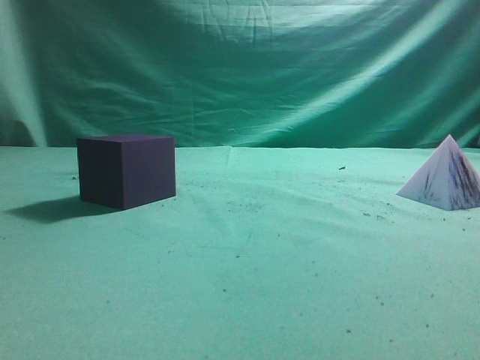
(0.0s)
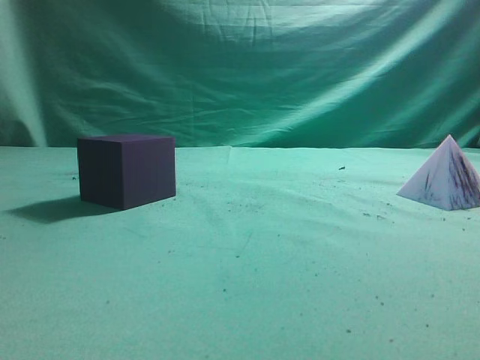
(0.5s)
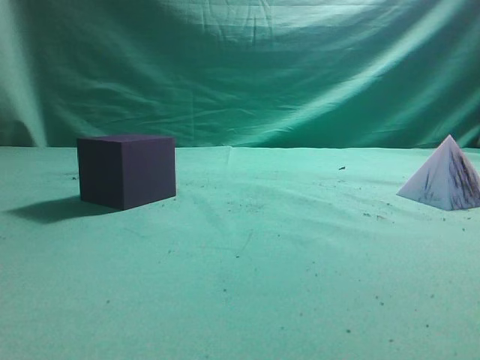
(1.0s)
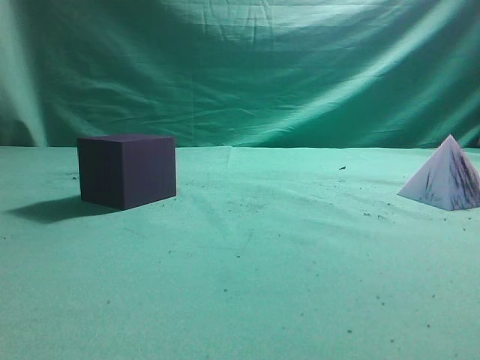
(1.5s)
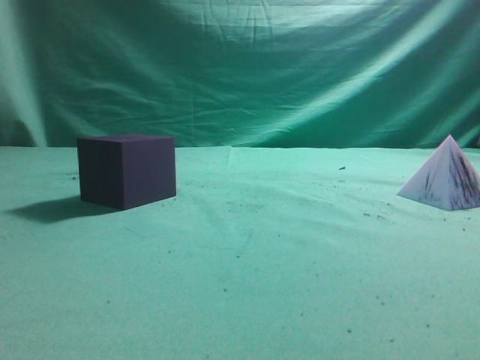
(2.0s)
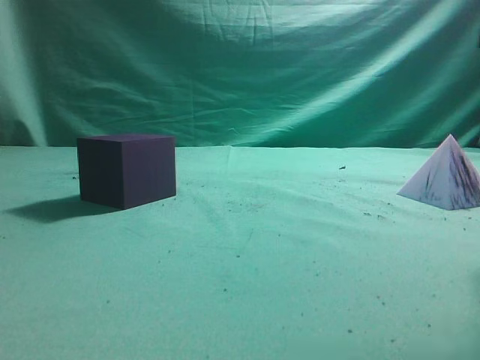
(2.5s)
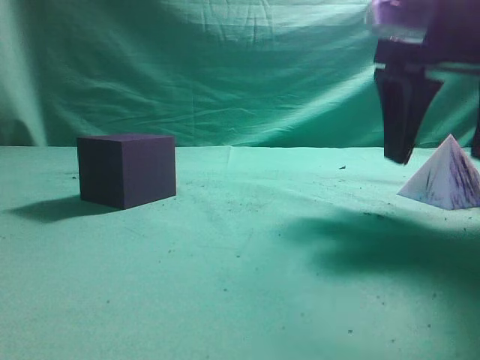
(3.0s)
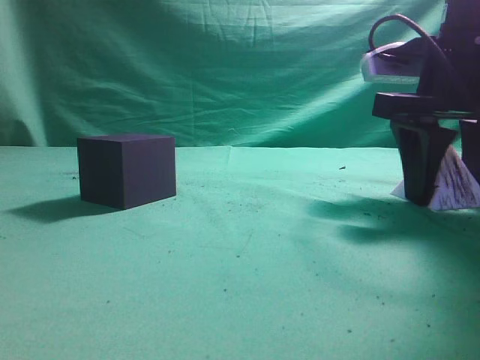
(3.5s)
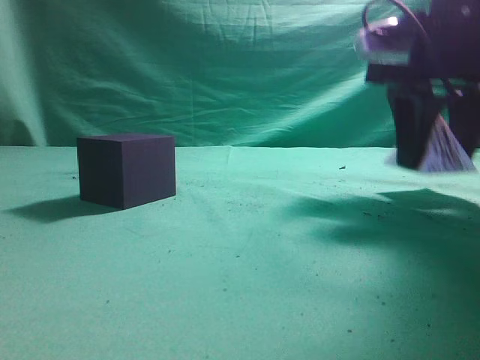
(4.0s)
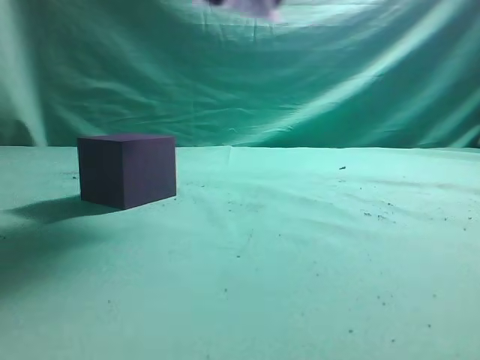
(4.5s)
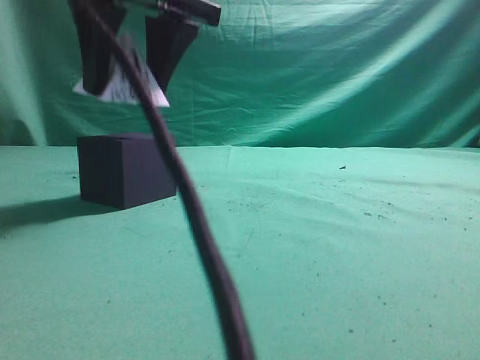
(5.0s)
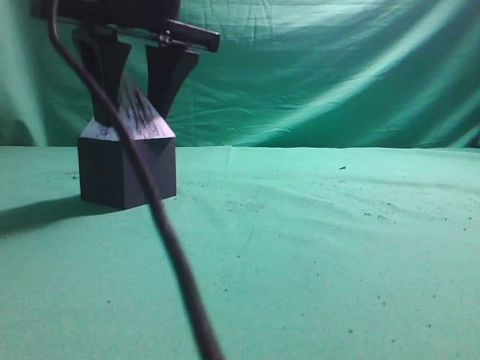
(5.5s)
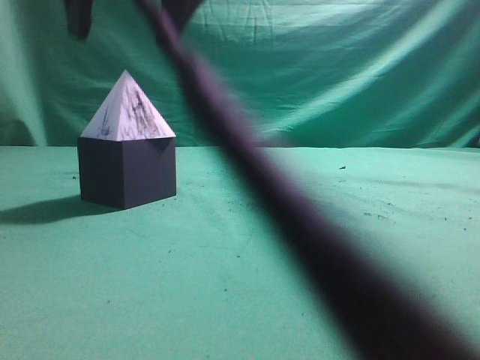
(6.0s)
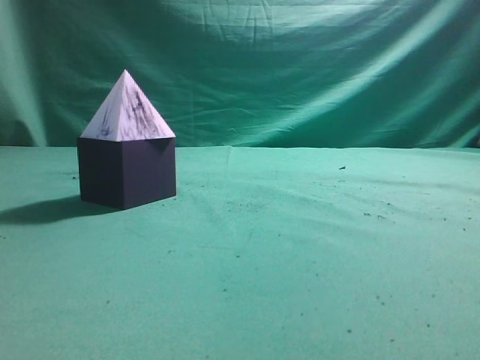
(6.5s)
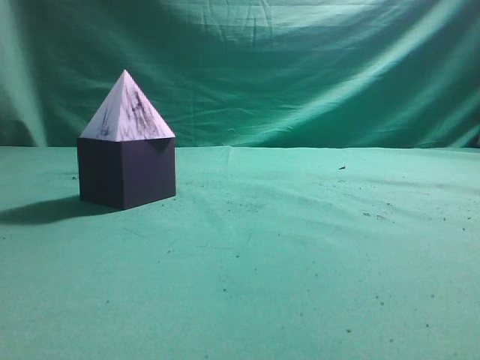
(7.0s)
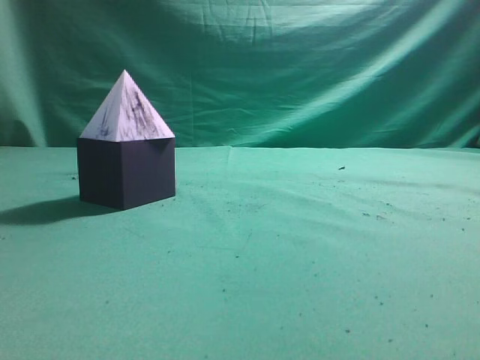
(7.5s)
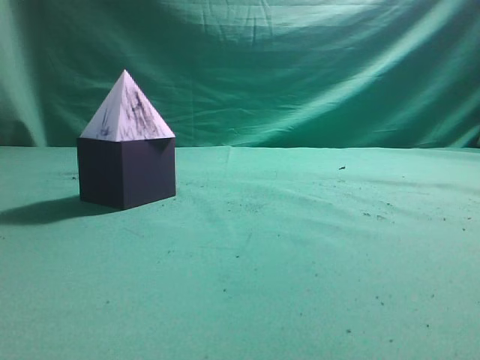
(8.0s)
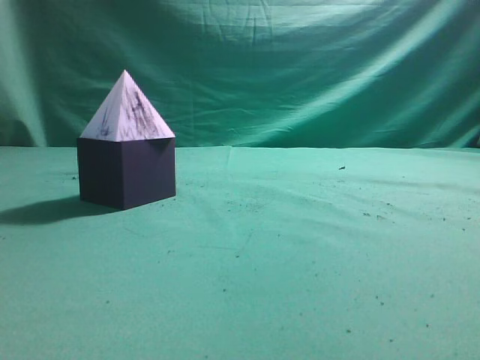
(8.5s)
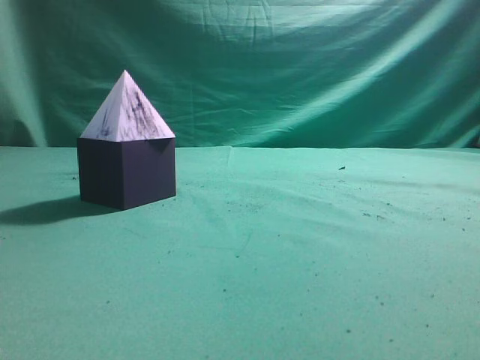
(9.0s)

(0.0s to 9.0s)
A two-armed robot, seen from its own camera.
Task of the whole recording: pick up the square pyramid from the table and place it on the cube block.
Step, 0.0s - 4.0s: Grasp the triangular block.
Step, 4.5s - 5.5s: Place the block onto the cube-shaped block.
2.0s - 4.5s: The right gripper travels to the left and forward by approximately 30 cm, and opens.
4.5s - 7.0s: The right gripper goes roughly 25 cm backward, to the right and upward, and closes.
